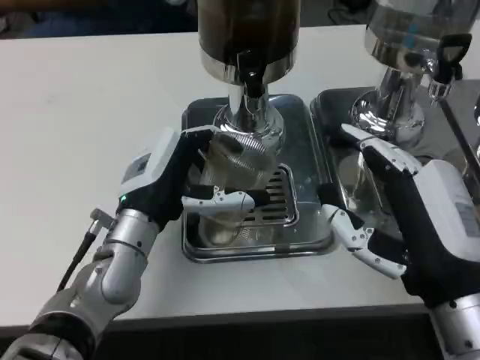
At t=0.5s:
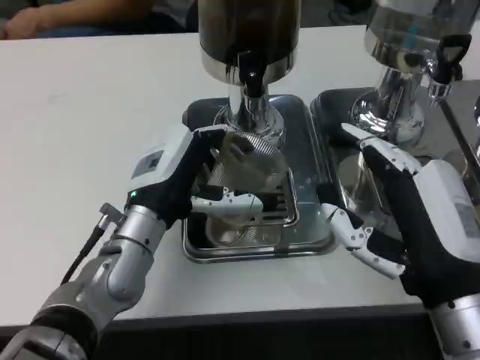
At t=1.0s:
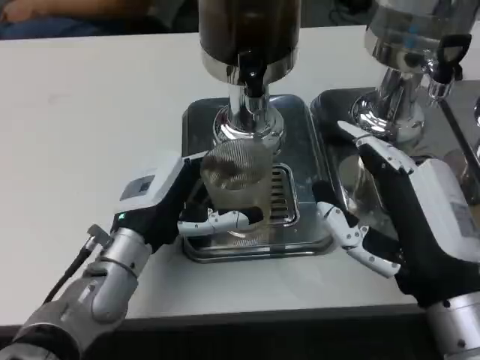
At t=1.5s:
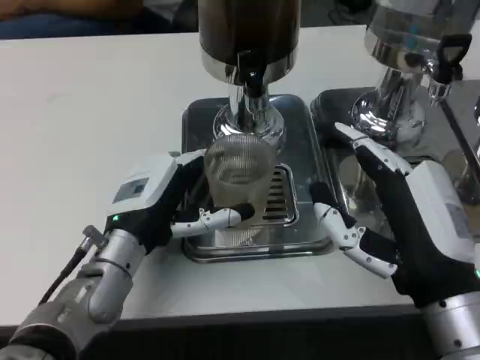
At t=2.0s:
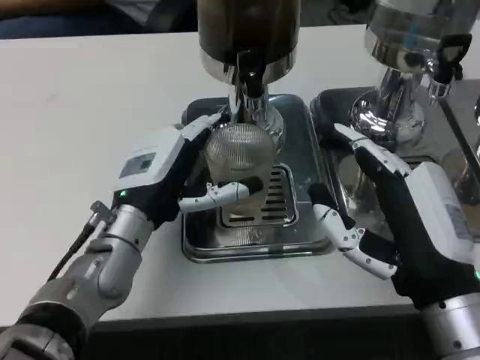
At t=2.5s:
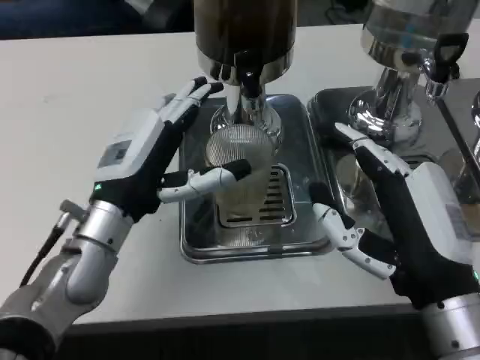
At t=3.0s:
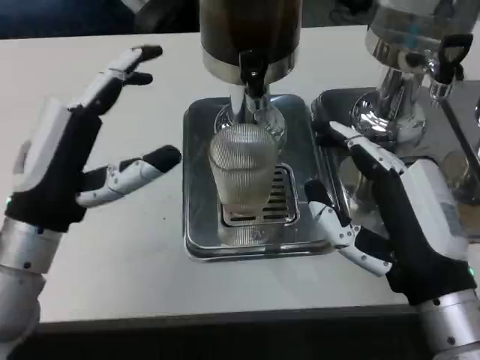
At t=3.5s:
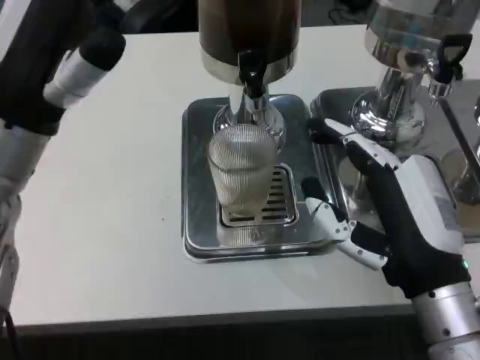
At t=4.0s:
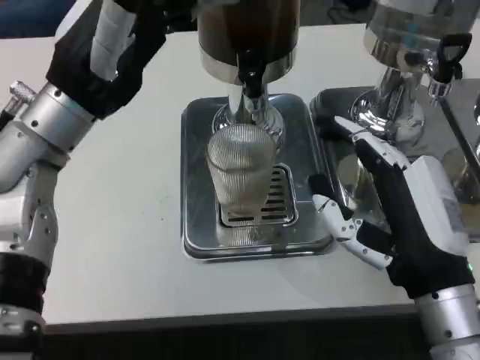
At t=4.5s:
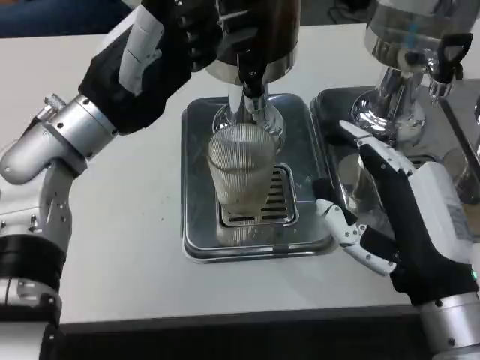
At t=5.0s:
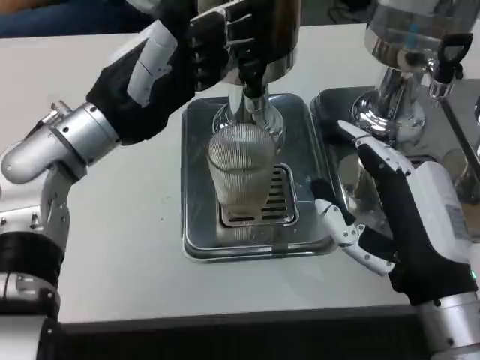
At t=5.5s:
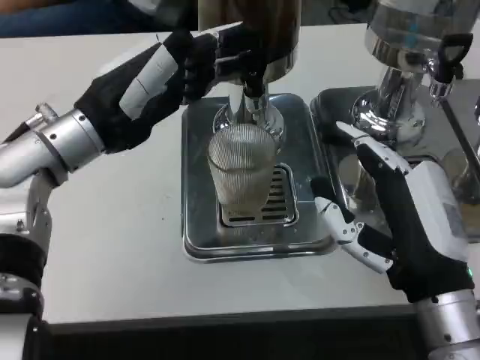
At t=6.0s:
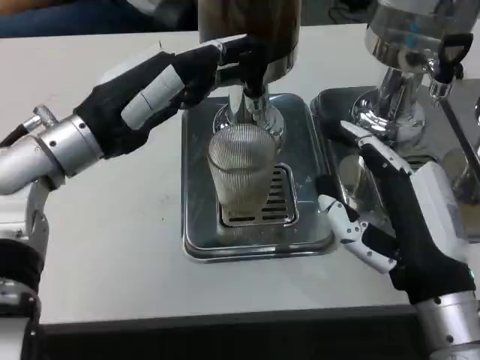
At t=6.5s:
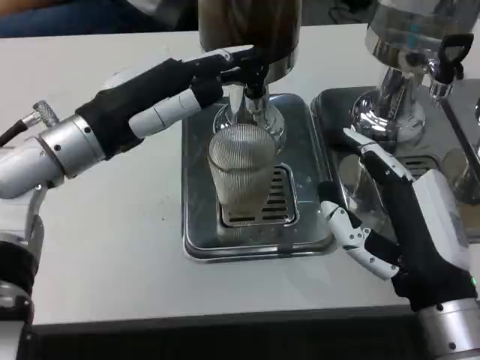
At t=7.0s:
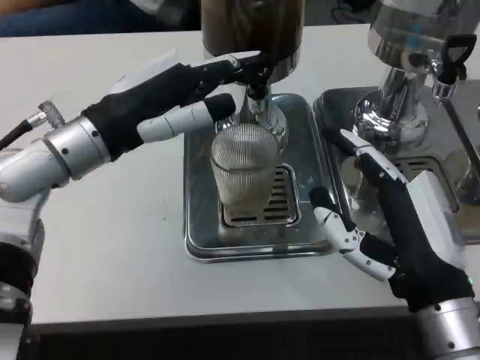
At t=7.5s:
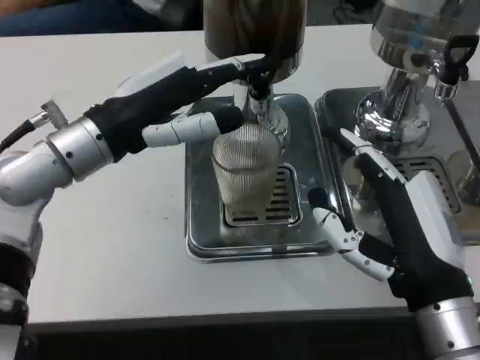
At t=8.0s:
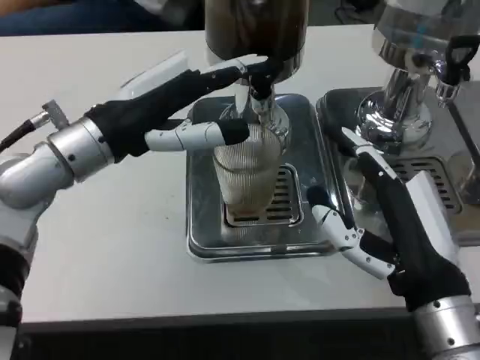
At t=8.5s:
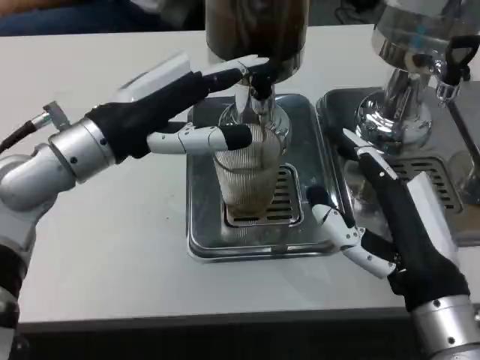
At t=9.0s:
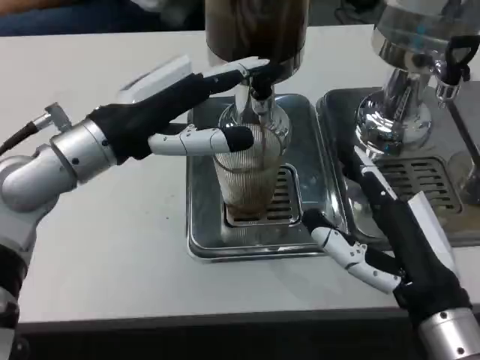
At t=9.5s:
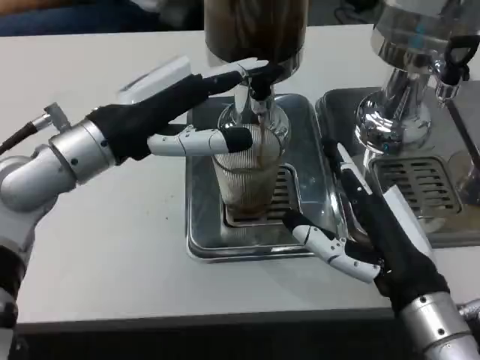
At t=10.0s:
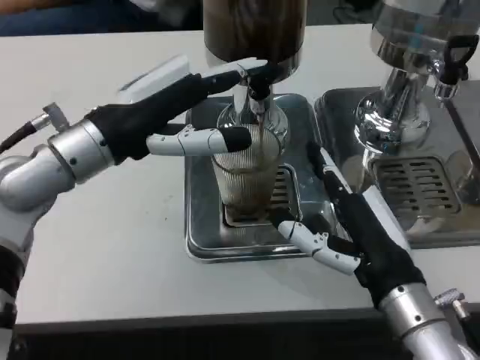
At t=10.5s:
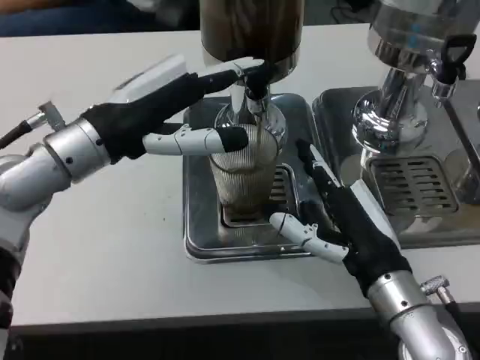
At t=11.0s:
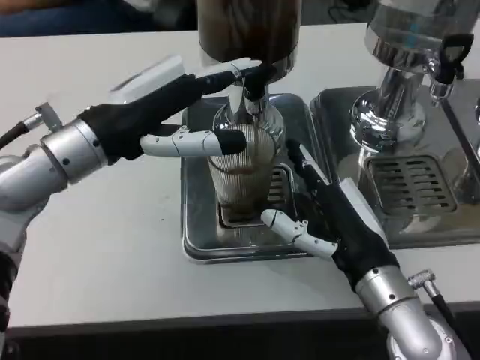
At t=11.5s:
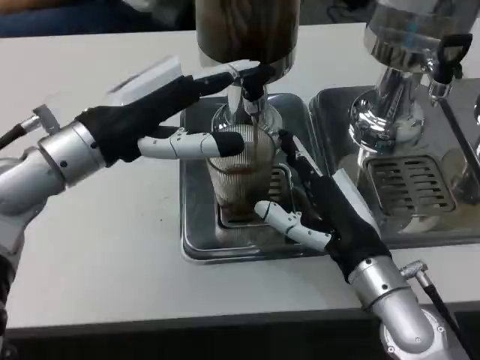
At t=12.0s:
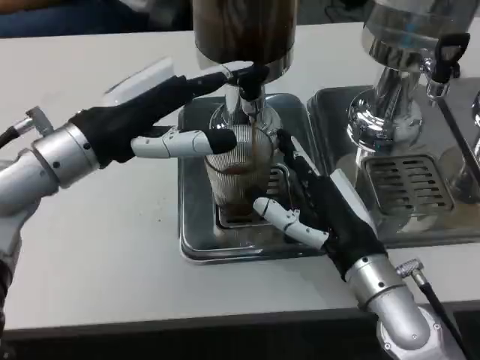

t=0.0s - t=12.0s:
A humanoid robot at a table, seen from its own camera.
Task of the whole recording: Grasp the cup under the faucet to collect the drink, then remove the cup.
t=0.0s - t=2.0s: The hands make only small movements.
t=2.0s - t=4.0s: The left hand goes about 15 cm upward.

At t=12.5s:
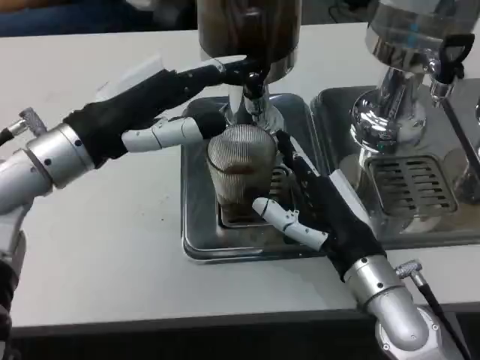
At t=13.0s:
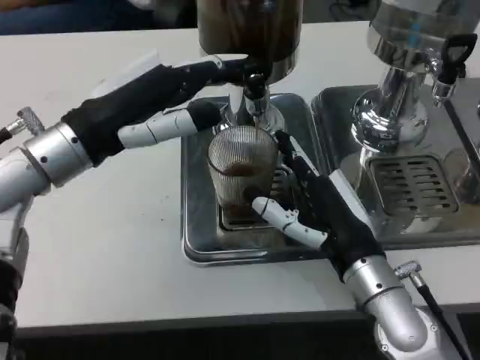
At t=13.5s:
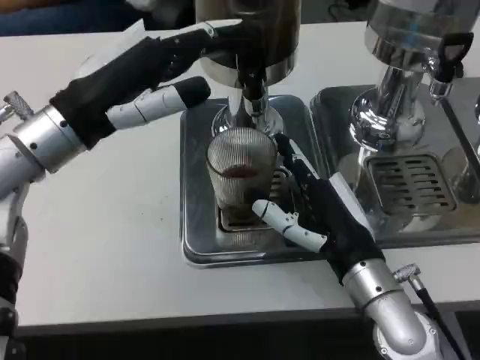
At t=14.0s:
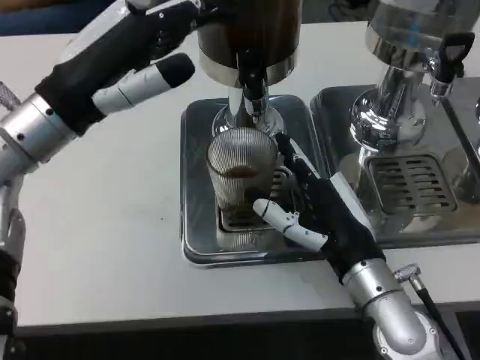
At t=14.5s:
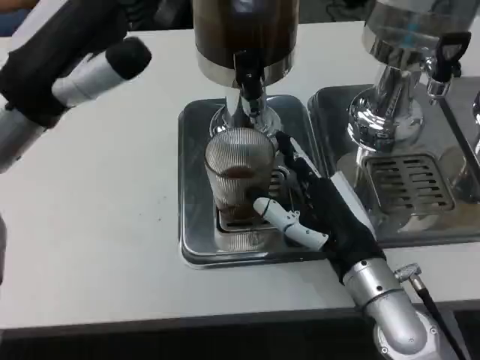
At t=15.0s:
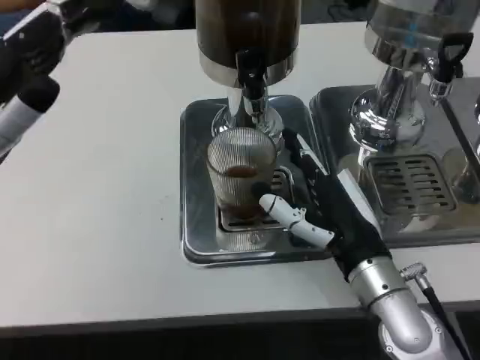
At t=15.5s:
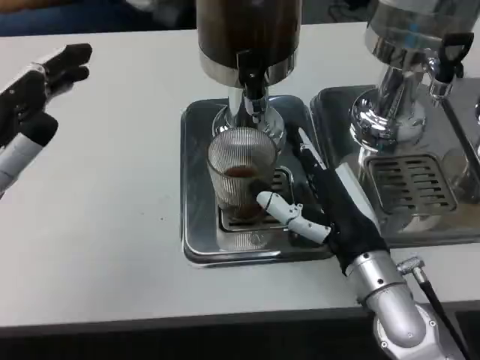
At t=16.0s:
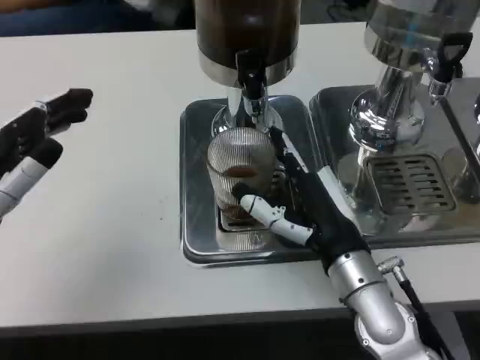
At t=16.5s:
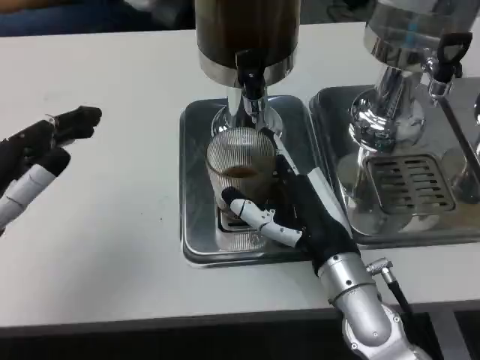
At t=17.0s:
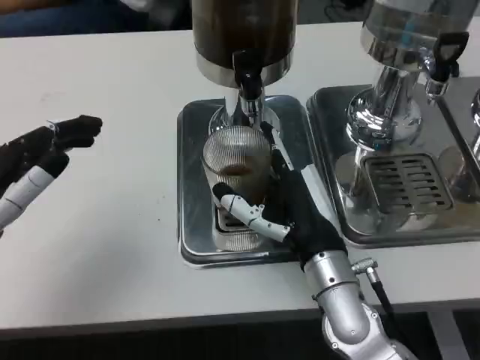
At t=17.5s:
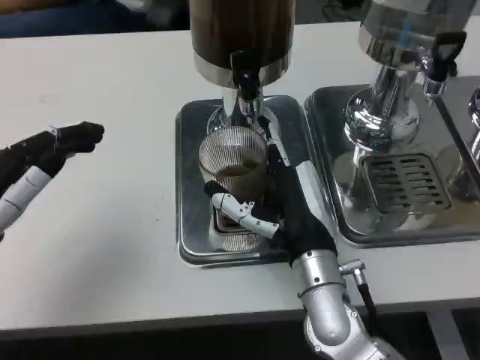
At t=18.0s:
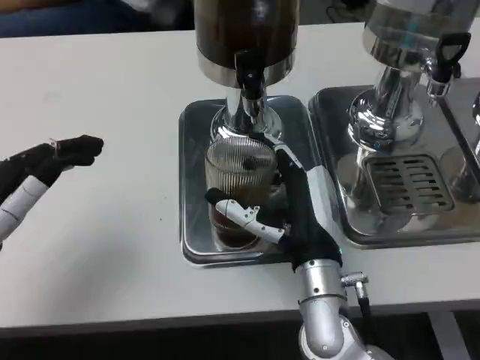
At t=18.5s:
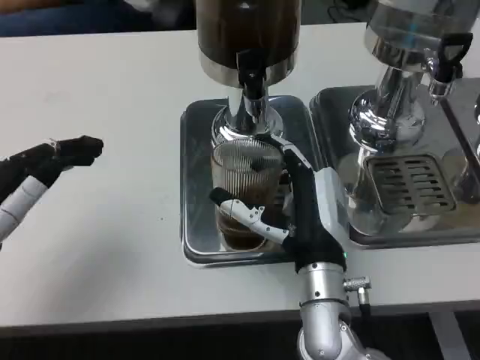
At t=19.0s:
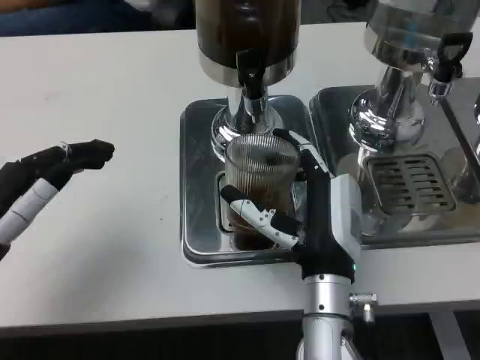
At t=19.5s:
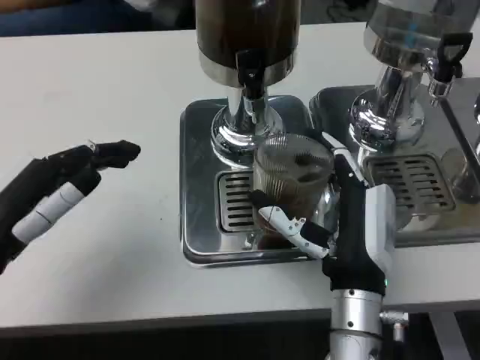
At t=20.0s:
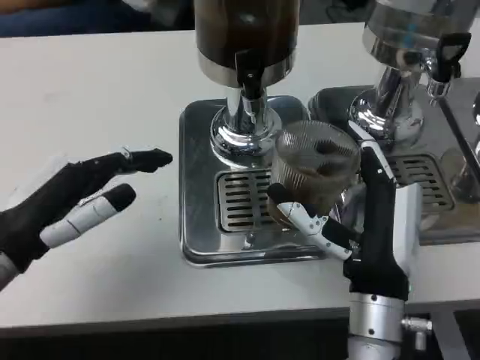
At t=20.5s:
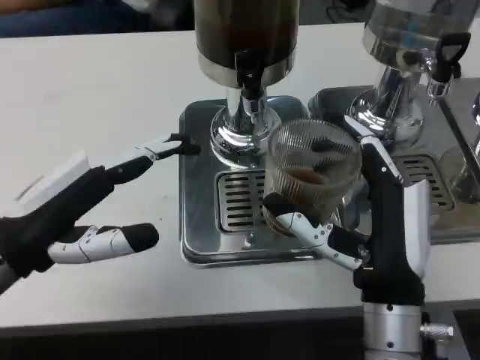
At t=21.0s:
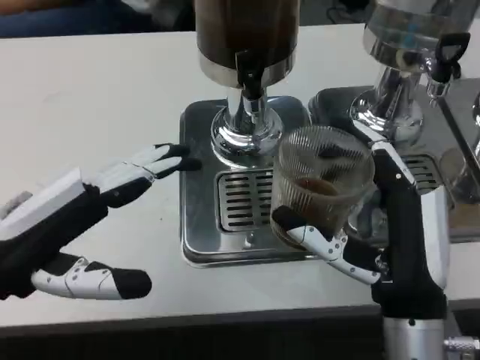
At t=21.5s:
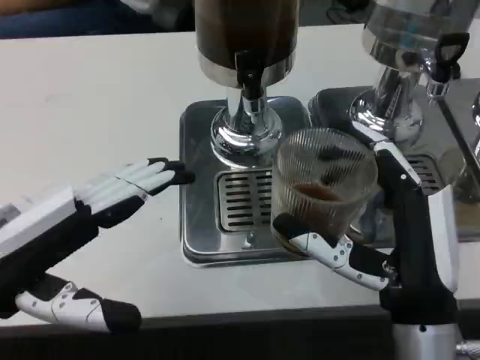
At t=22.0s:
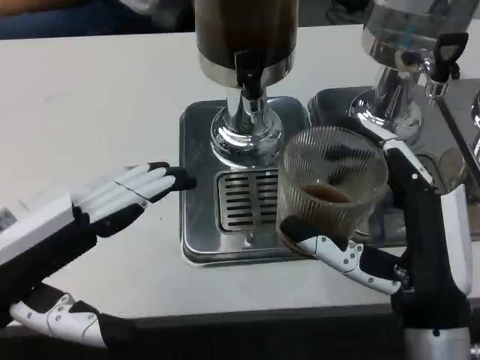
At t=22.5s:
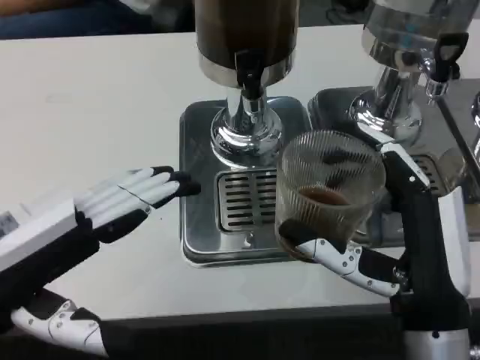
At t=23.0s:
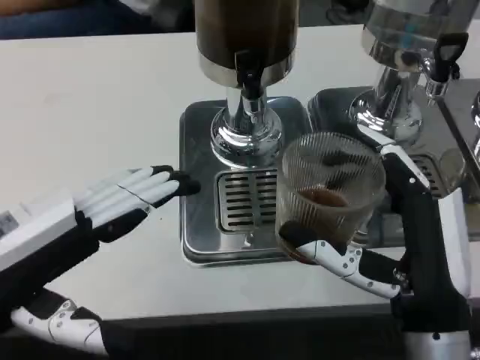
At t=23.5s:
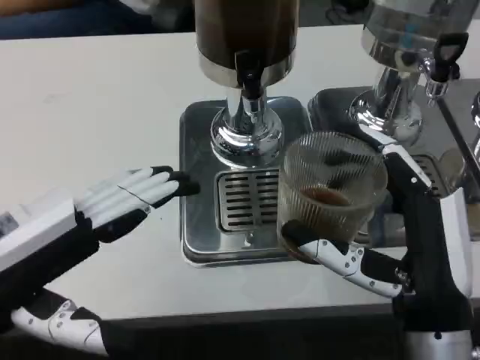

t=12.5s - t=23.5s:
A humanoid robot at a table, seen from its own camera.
Task of the whole recording: Grasp the cup under the faucet to collect the drink, then remove the cup.
t=12.5s - t=14.5s: The left hand moves about 5 cm.
t=14.5s - t=16.0s: The left hand shifts about 15 cm downward, backward and to the left.
t=16.0s - t=18.0s: The right hand goes roughly 5 cm to the left.
t=18.0s - t=20.0s: The right hand moves about 5 cm.
t=20.0s - t=21.5s: The right hand ends up roughly 5 cm from where it was. Meanwhile the left hand moves backward, roughly 5 cm.
t=21.5s - t=23.5s: Neither hand changes place.

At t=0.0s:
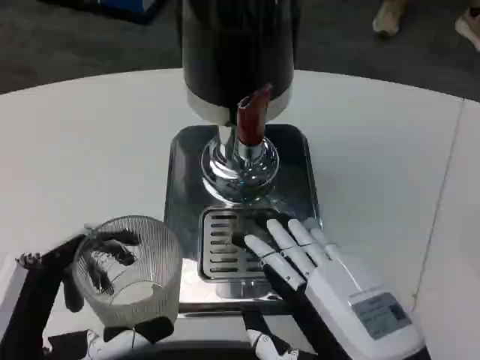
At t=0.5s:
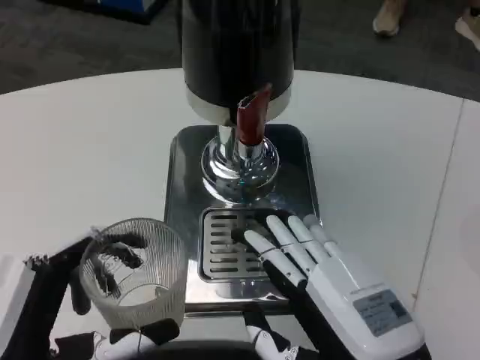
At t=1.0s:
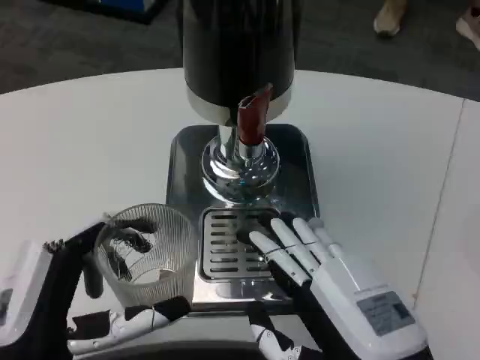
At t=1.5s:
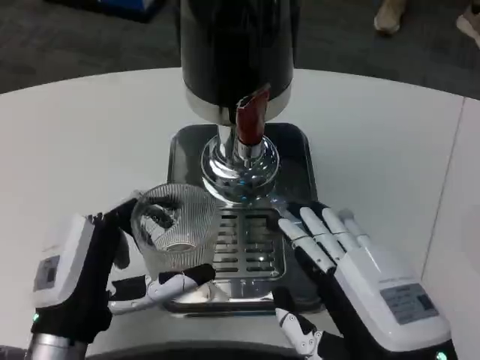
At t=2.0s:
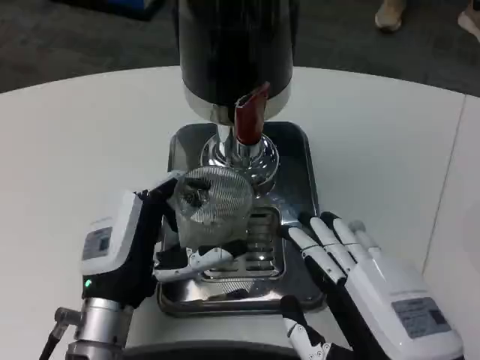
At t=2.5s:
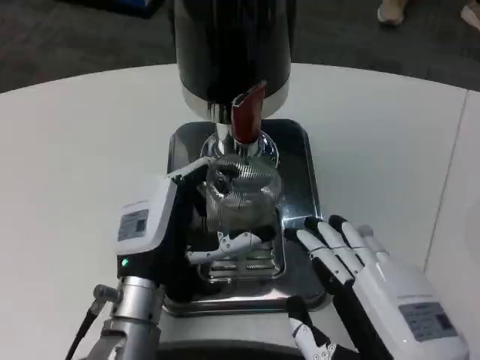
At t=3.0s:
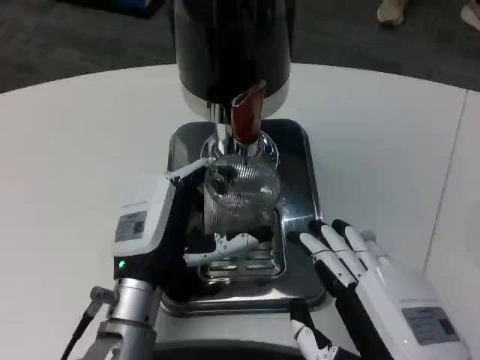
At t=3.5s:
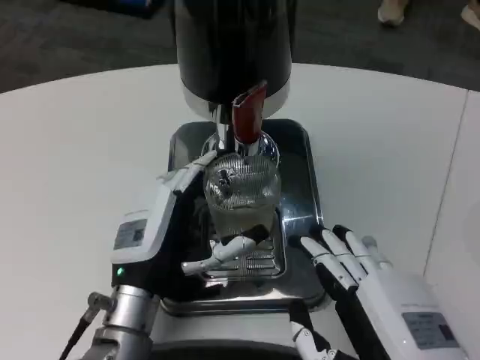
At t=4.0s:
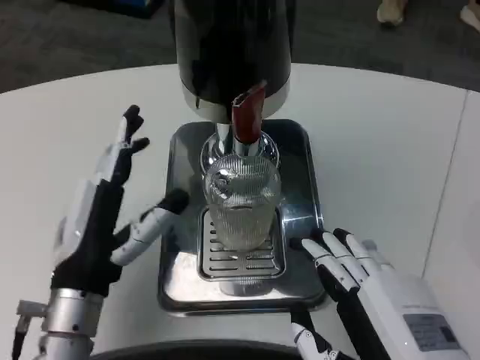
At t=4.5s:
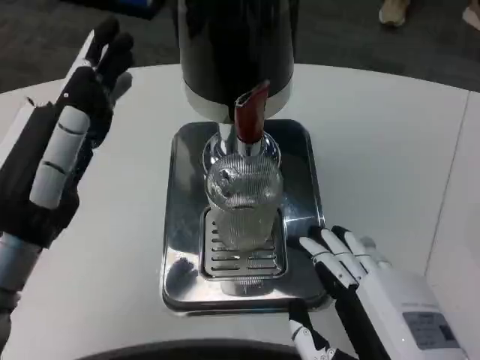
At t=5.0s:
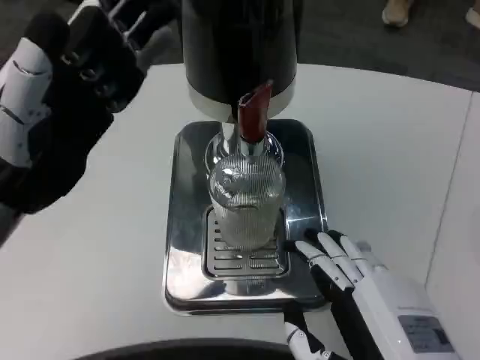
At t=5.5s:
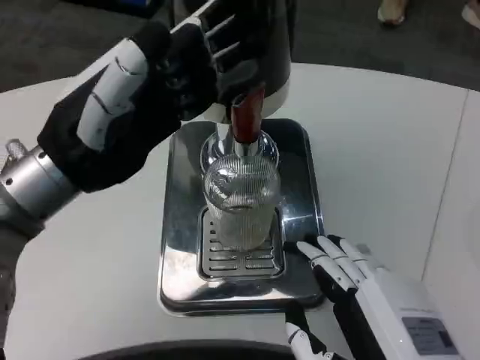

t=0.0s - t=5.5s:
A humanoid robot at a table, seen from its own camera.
Task of the whole recording: Grasp the cup under the faucet to collect the drink, then remove the cup.
t=0.0s - t=2.0s: The left hand heads forward and to the right, covering approximately 15 cm.
t=2.0s - t=3.5s: The hands move only a little.
t=3.5s - t=5.5s: The left hand is displaced upward and to the left by roughly 20 cm.
